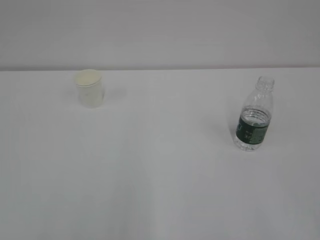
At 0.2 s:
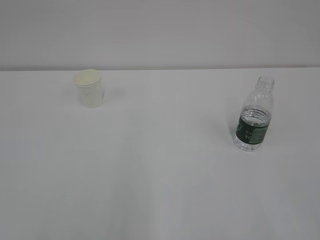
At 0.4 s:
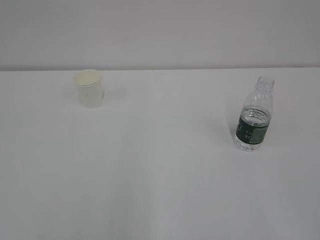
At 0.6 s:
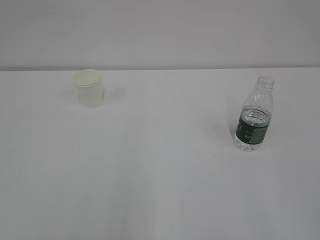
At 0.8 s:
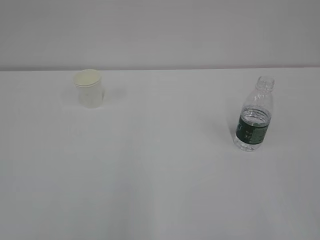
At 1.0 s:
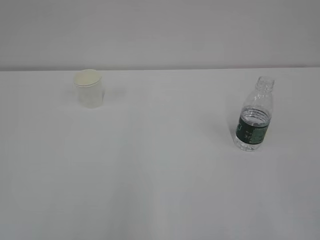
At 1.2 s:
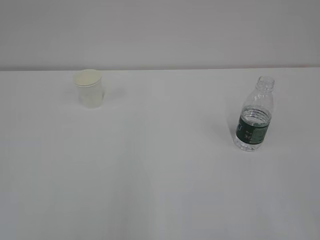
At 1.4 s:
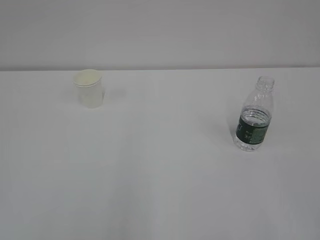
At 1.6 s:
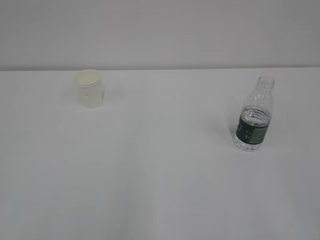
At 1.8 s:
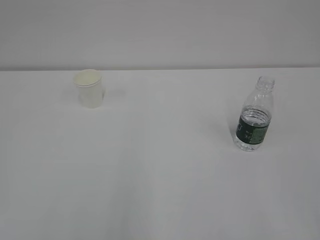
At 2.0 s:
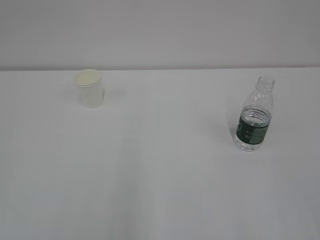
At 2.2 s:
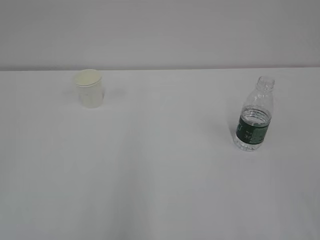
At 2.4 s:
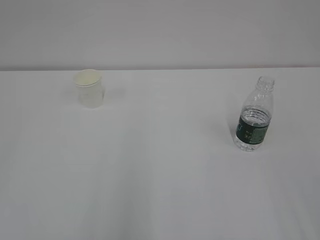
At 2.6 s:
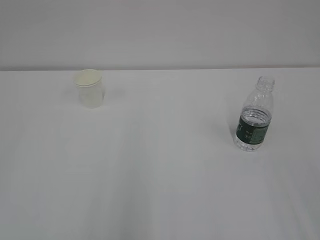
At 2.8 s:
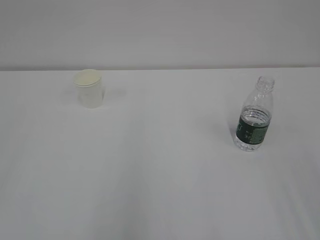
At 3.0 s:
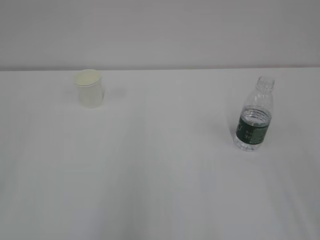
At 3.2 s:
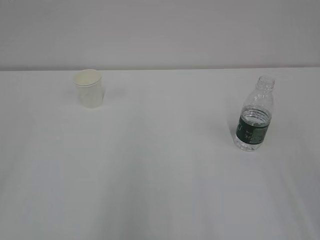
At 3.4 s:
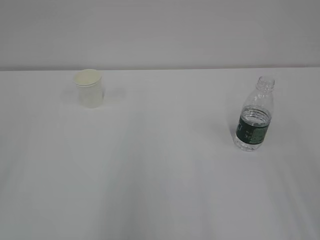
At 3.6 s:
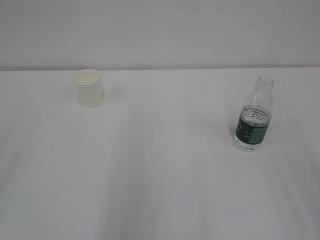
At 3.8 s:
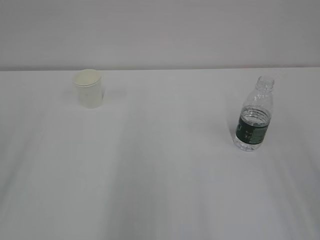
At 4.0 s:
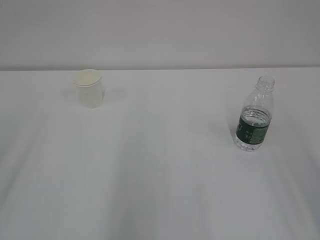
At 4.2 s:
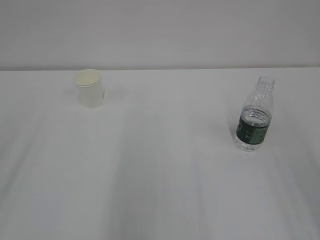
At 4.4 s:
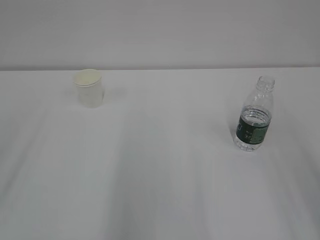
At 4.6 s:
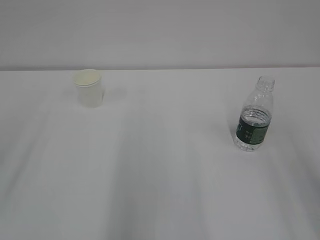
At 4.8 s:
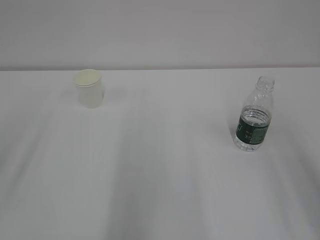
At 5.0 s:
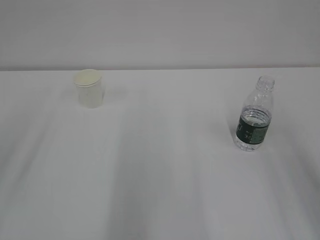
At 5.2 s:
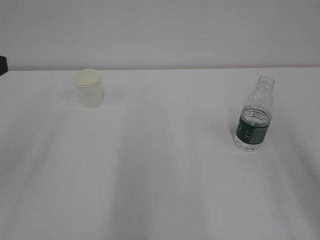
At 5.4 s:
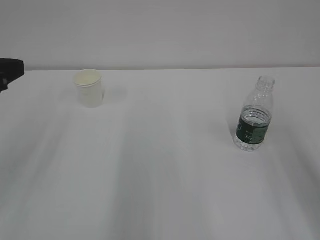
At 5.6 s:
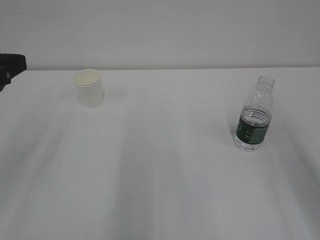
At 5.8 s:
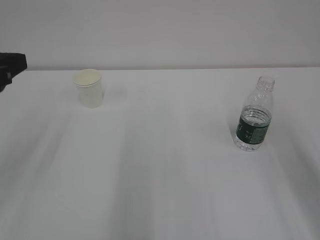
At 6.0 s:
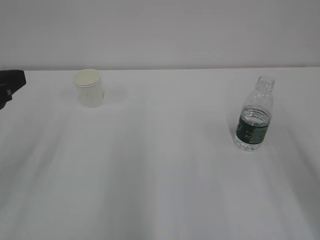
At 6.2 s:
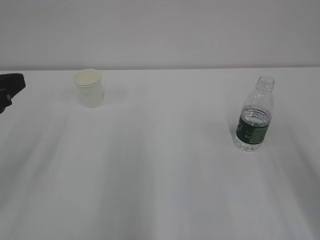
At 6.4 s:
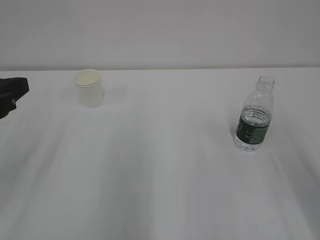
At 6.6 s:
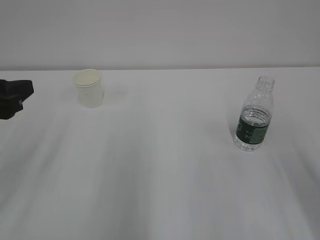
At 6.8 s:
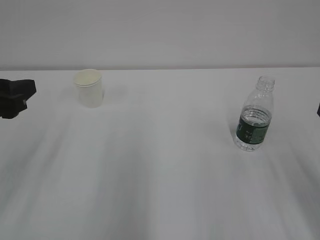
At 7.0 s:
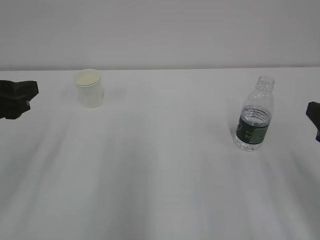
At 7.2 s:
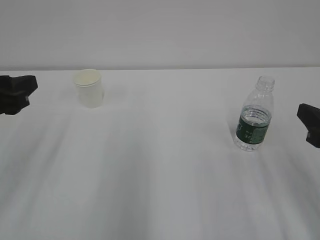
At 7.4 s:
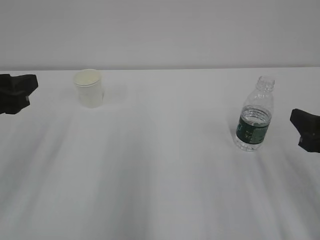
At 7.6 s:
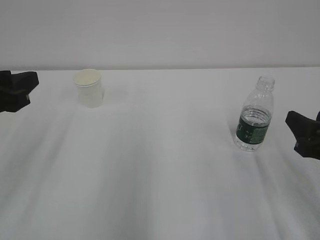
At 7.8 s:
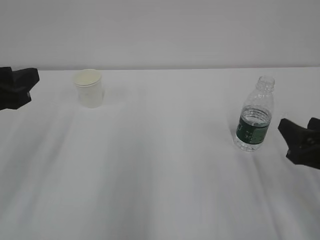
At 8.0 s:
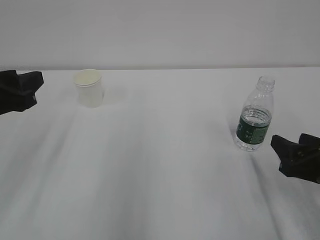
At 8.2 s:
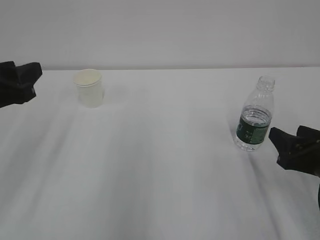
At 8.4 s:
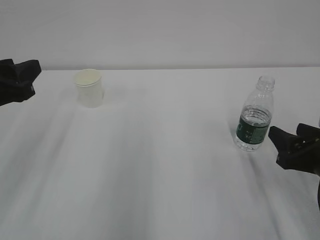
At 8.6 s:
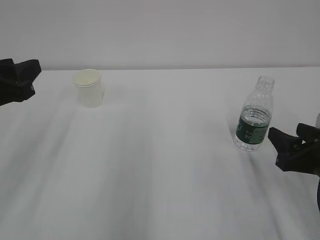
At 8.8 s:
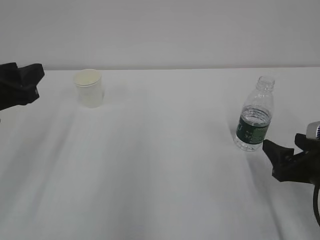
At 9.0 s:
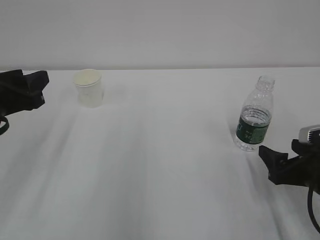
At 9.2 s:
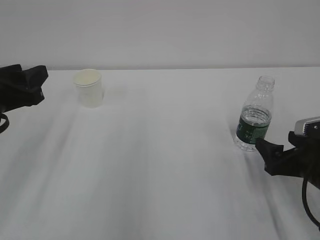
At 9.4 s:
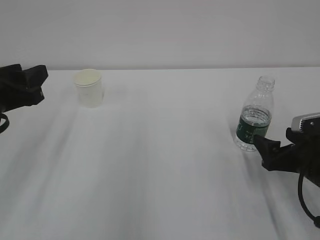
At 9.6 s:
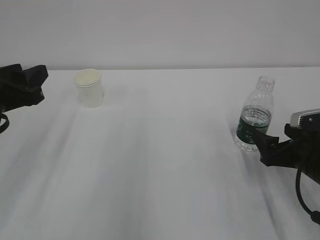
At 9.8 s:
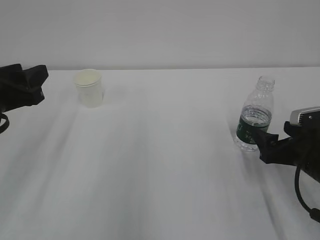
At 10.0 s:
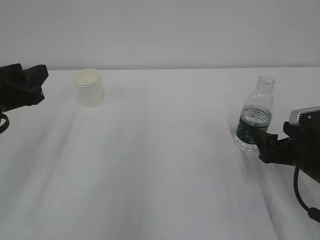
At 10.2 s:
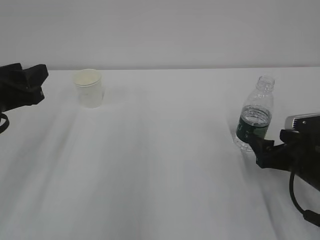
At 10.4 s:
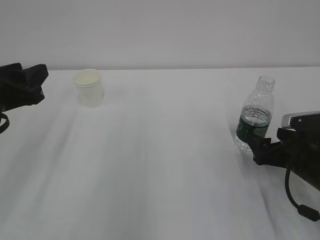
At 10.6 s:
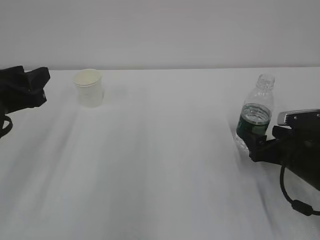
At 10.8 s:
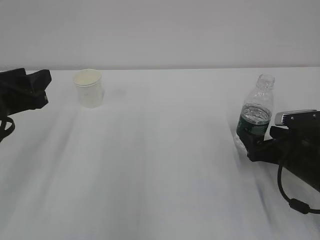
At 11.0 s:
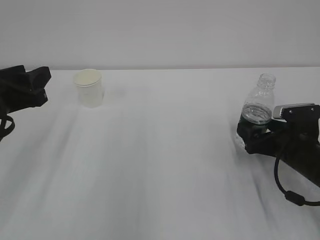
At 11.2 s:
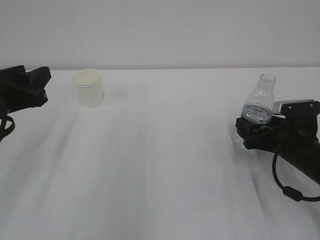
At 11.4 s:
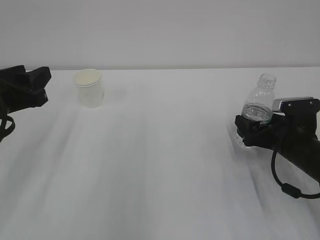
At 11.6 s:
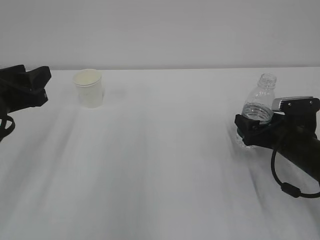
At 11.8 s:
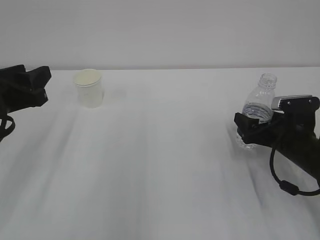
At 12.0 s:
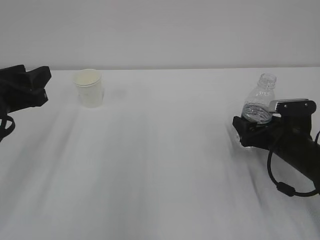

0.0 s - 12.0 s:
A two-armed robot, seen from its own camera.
4.4 s - 6.0 s: The left gripper shifts approximately 10 cm forward and downward.
6.0 s - 7.6 s: The right gripper is displaced downward by roughly 10 cm.
7.6 s - 9.0 s: The right gripper heads downward, covering some 5 cm, and opens its fingers.
9.0 s - 10.4 s: The right gripper shifts by some 5 cm.
10.4 s - 12.0 s: The right gripper ends up approximately 5 cm from where it was.

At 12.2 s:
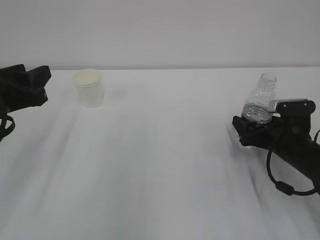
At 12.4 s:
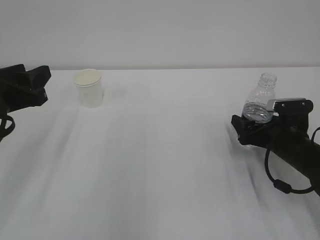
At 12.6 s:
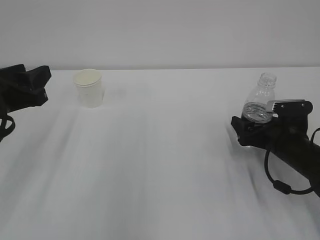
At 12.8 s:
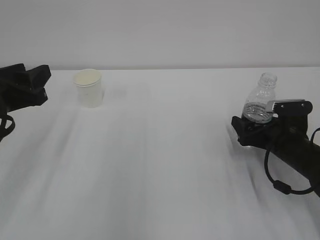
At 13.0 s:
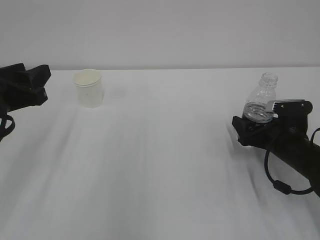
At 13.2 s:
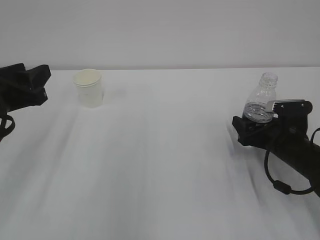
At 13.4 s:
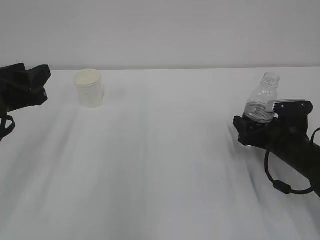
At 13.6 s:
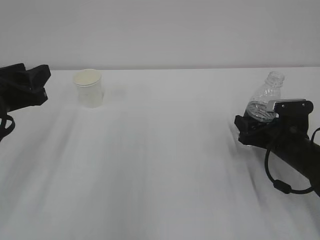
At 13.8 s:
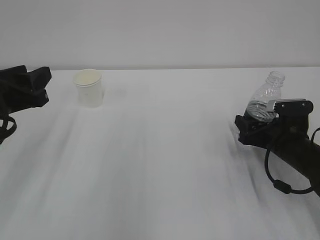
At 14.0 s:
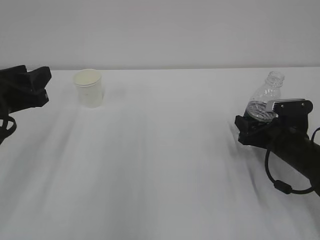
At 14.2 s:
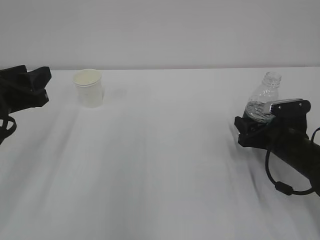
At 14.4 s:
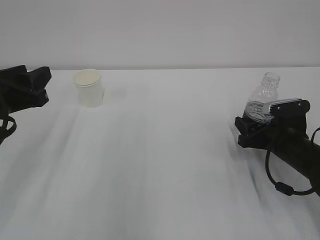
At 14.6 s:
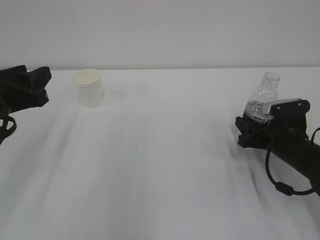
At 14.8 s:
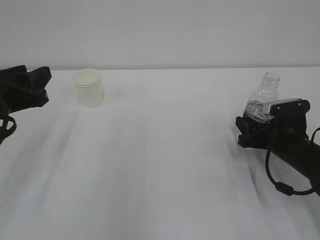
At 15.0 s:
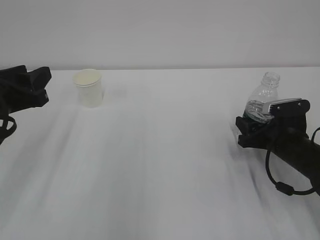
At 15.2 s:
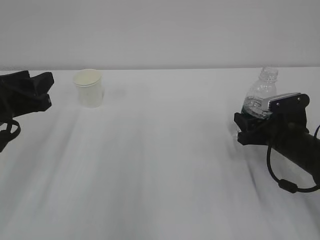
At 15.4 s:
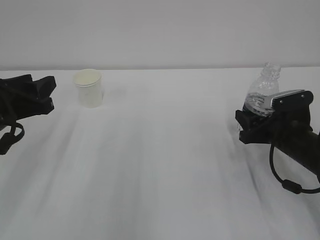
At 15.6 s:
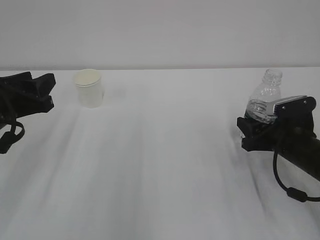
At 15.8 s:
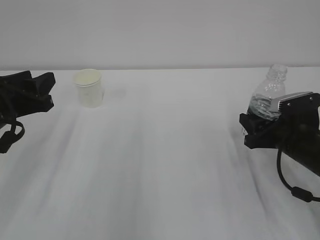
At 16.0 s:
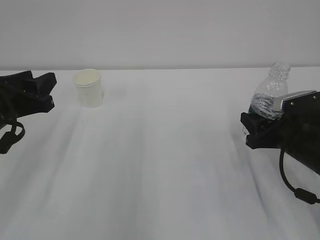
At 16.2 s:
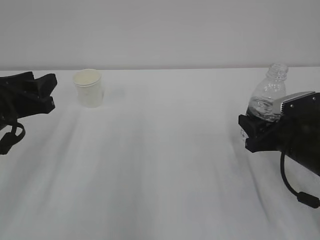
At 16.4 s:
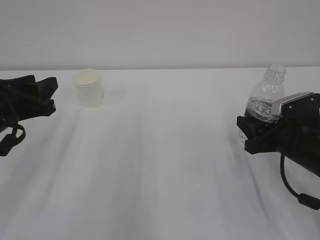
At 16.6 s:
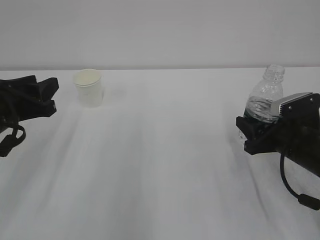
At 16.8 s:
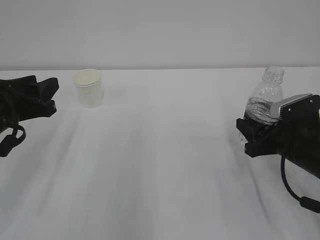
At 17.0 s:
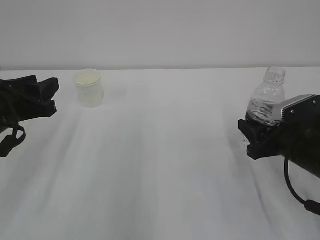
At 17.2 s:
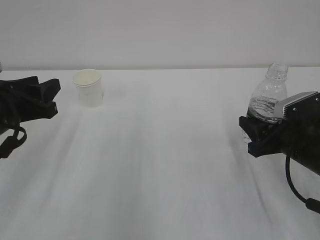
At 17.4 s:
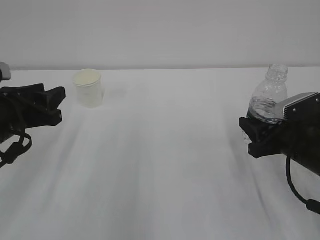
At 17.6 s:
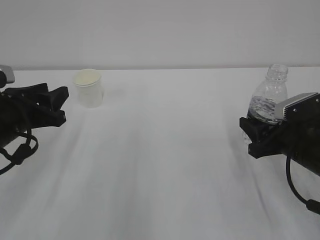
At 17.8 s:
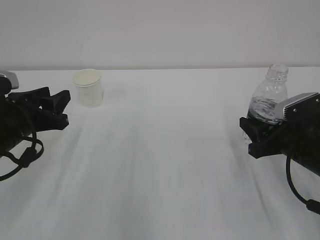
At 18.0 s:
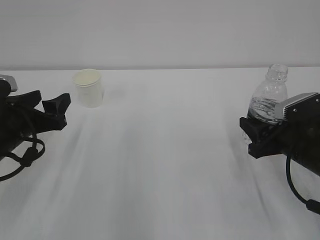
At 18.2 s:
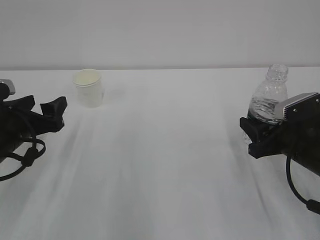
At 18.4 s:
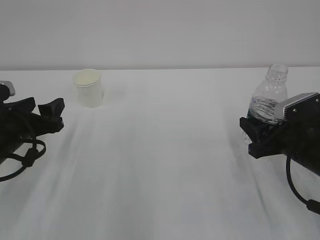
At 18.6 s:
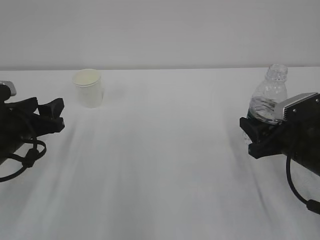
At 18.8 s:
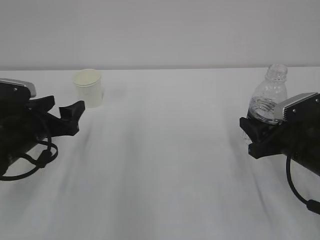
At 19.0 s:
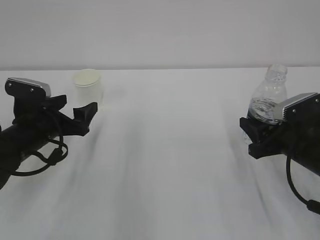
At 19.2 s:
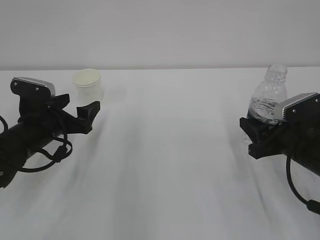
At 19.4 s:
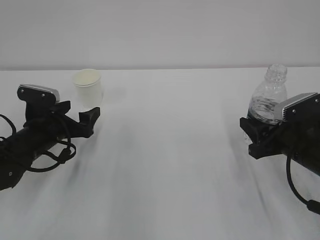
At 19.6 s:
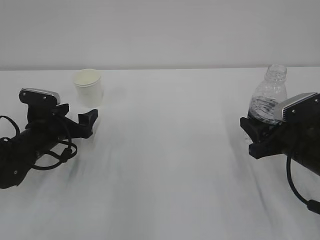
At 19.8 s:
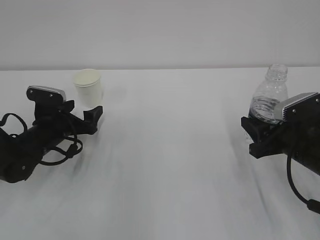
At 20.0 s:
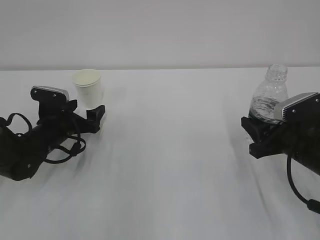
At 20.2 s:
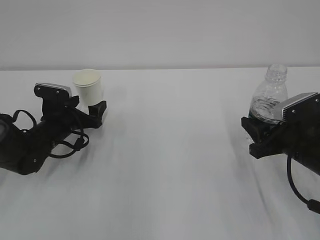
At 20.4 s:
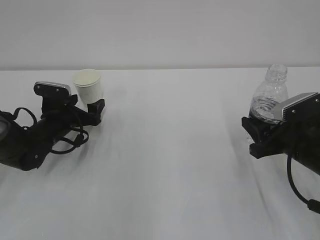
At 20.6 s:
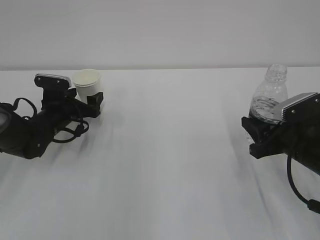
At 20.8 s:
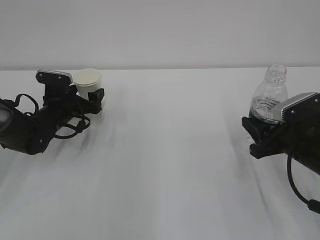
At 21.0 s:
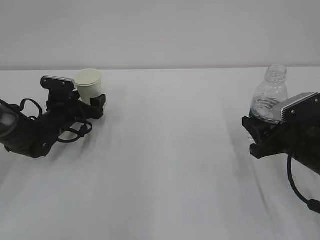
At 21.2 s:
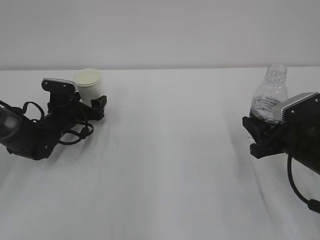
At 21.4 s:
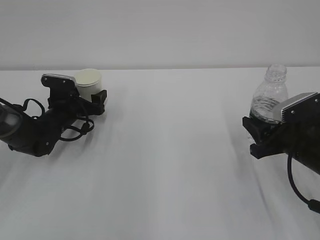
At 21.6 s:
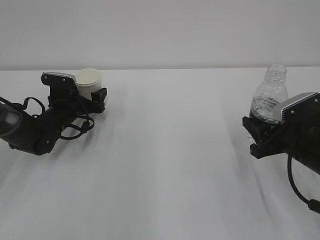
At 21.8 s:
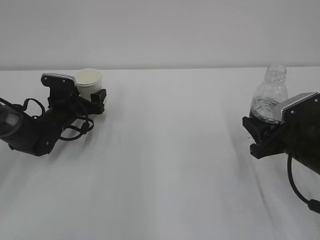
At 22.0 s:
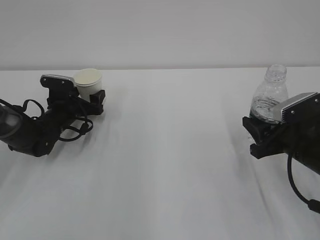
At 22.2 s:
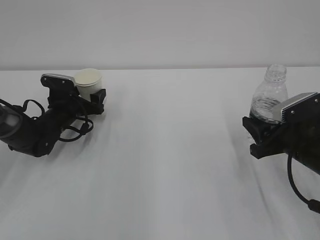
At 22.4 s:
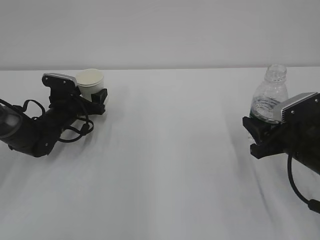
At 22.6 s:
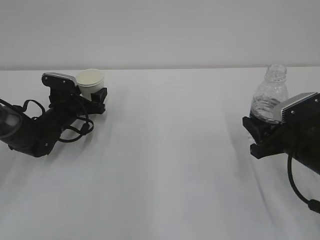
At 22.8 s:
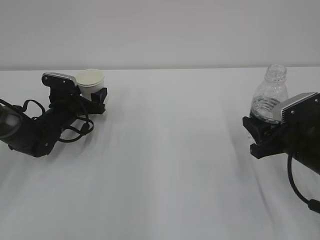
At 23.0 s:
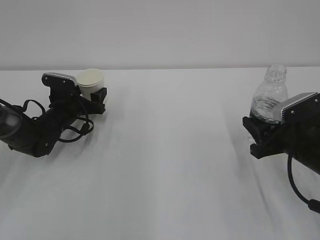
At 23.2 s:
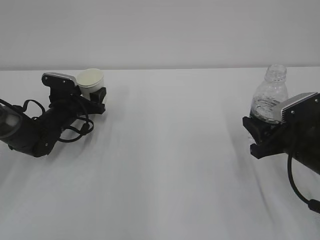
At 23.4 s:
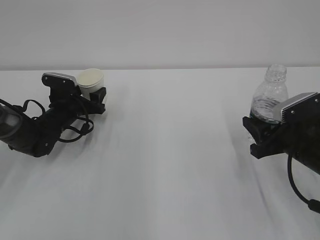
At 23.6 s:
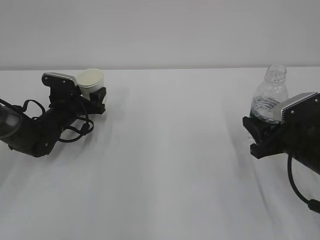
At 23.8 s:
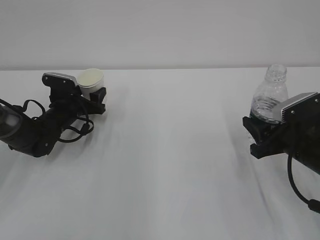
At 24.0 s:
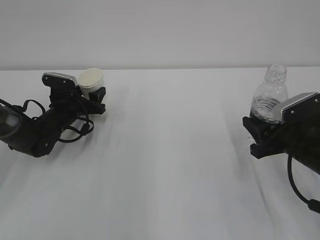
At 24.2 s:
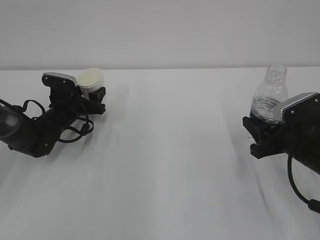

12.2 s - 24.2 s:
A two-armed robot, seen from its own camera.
12.2 s - 13.8 s: The right gripper closes its fingers.
13.8 s - 16.6 s: There are only small adjustments of the grippers.
16.6 s - 18.2 s: The left gripper travels downward by roughly 5 cm, and opens up.
18.2 s - 19.8 s: The left gripper goes roughly 10 cm forward and downward, and closes, then opens again.
19.8 s - 21.2 s: The left gripper is displaced forward by about 5 cm.
21.2 s - 22.6 s: The grippers stay close to where they were, moving slightly.
